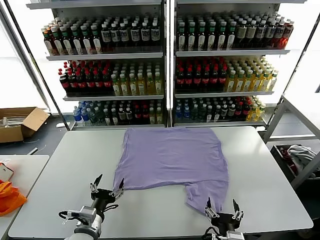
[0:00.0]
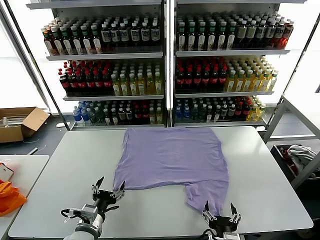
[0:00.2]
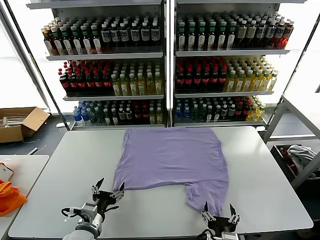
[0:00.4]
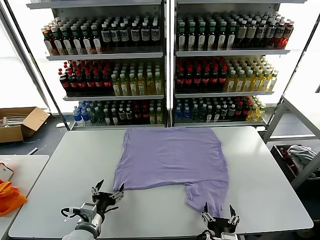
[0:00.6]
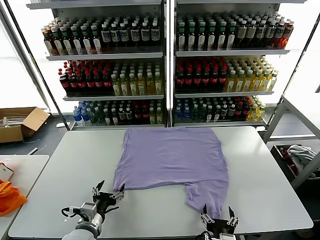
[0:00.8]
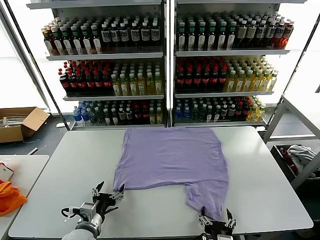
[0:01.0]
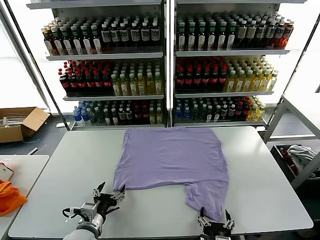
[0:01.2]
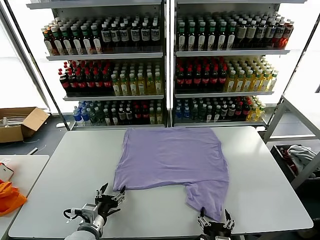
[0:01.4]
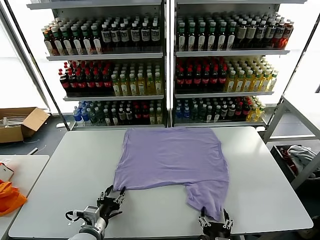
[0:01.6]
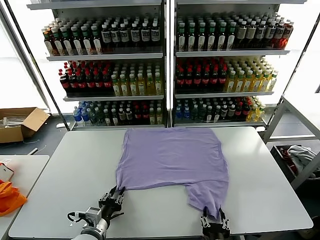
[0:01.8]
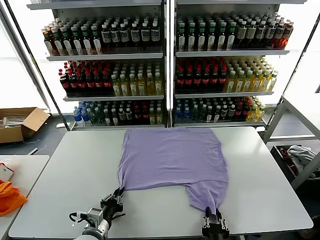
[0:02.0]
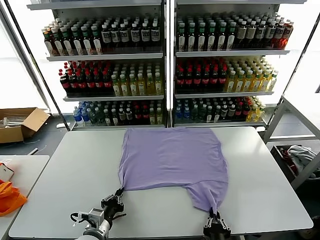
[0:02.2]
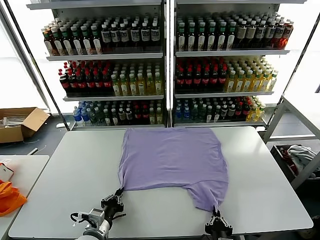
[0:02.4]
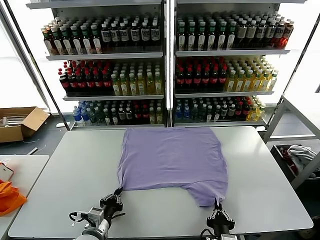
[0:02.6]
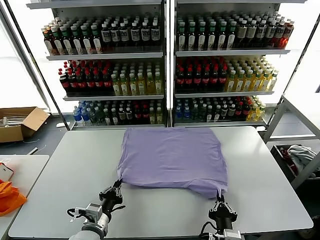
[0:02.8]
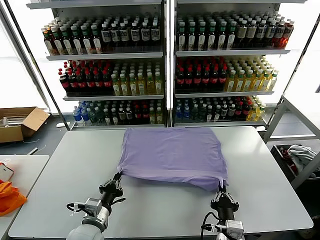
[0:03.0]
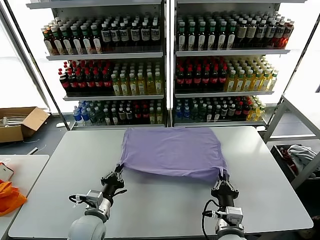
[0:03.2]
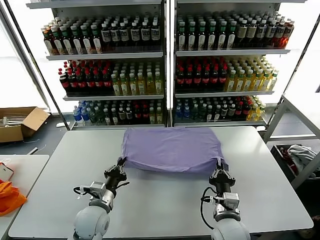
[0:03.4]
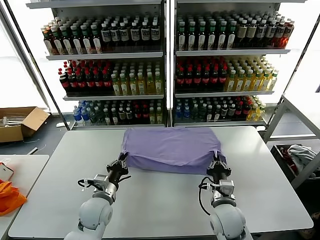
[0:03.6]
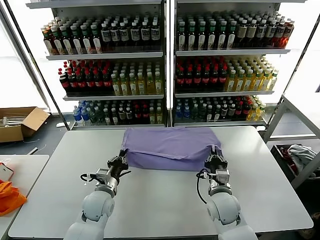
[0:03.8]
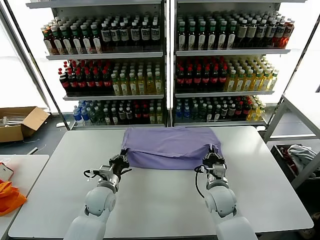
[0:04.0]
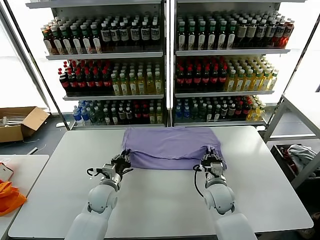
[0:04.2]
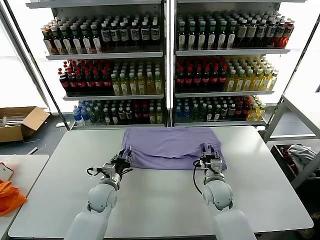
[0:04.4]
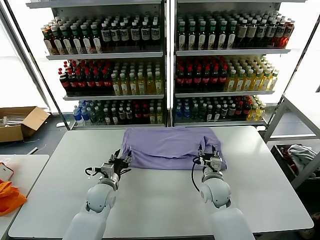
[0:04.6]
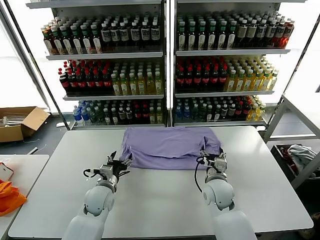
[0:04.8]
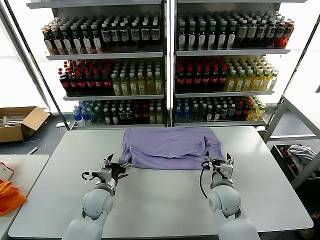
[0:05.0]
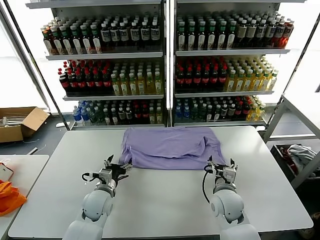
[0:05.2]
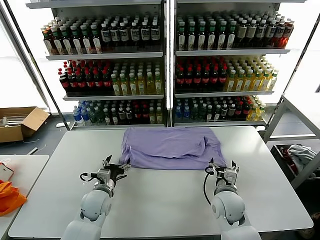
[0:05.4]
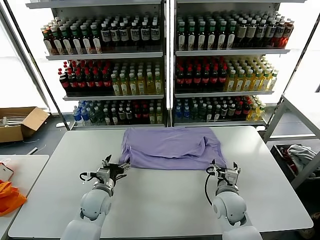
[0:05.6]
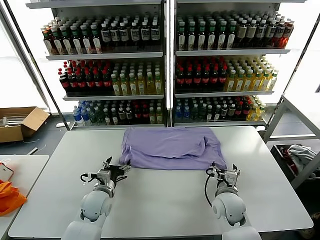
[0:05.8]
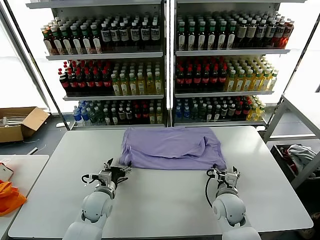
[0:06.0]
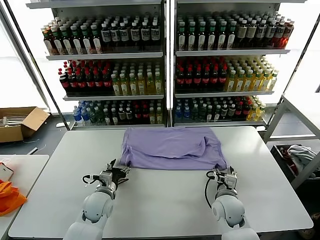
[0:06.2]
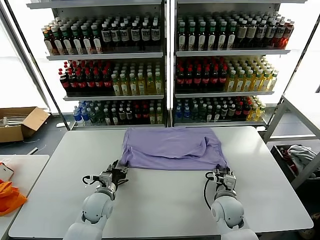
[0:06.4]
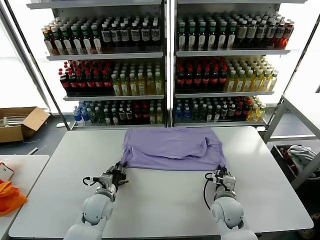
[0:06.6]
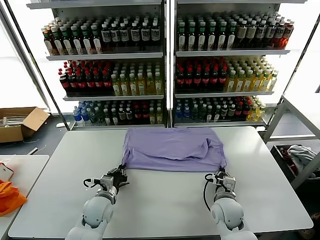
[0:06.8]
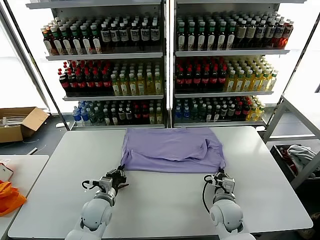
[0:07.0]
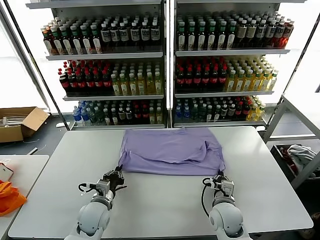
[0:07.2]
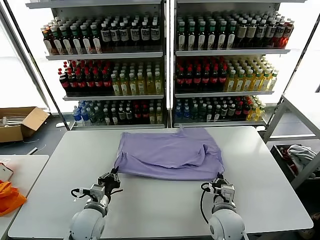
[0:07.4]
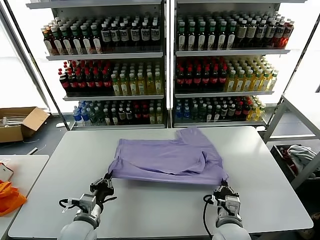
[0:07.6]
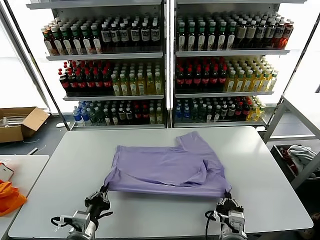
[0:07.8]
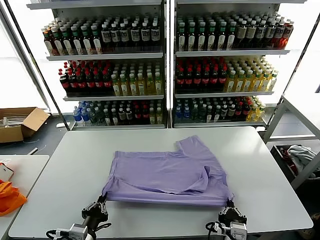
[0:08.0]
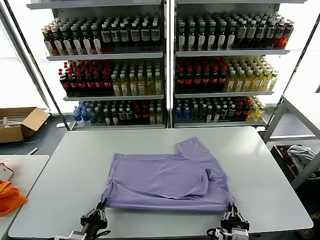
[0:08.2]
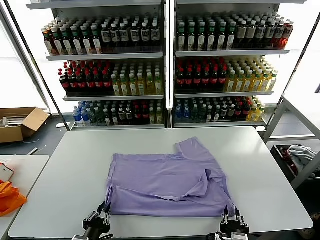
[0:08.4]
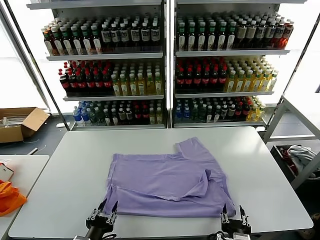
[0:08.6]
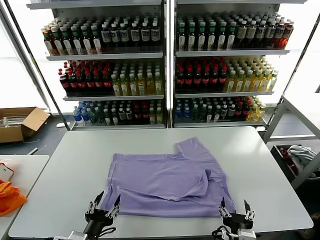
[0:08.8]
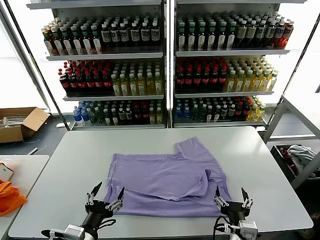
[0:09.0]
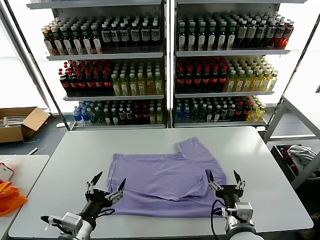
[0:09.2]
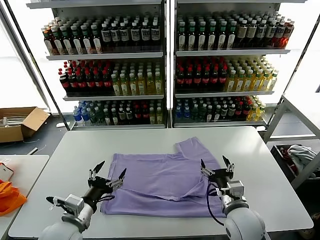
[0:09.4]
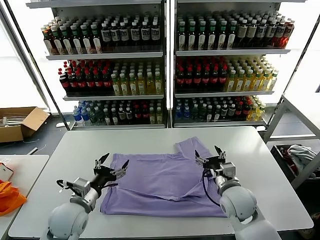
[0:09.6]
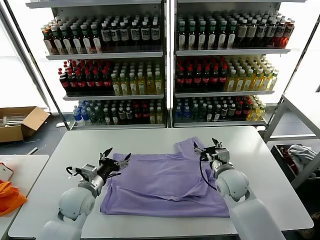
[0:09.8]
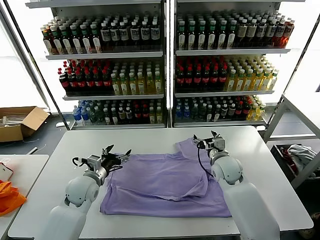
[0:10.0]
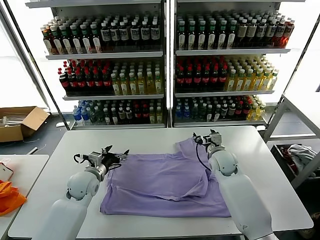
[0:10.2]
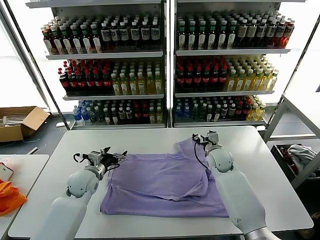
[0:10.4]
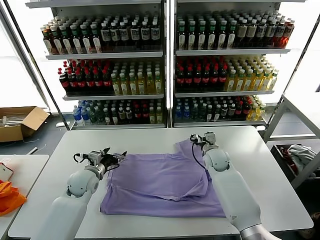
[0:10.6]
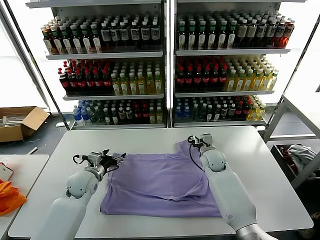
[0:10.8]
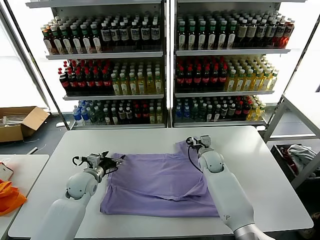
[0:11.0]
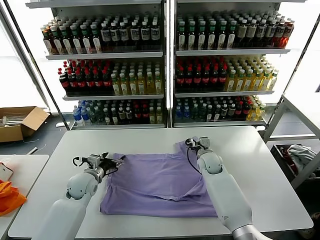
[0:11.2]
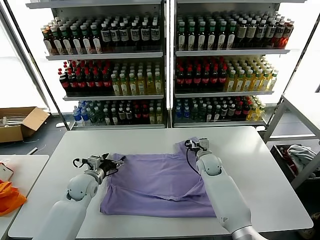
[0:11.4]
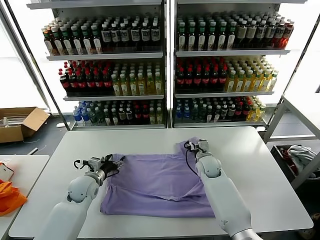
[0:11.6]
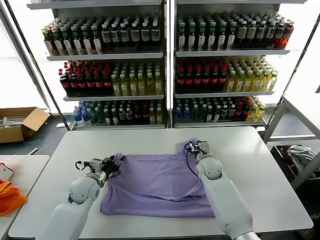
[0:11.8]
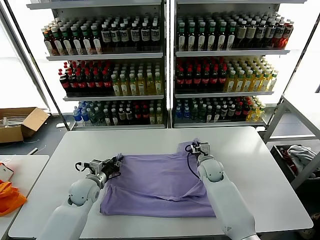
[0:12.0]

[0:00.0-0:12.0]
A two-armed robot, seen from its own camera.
Task of the whole recording: fold and organize the clothes.
Step, 0.0 to 2.6 s: use both grippers simultaneously to clamp the lower edge of the clothing fabric.
Step, 2.8 to 4.6 s: use both grippers to drag the lower edge of the fabric forward and fold it over the upper edge.
Step, 4.8 to 8.4 s: Drag the clothes downward with both gripper.
1.6 to 3.0 s: The right gripper moves forward, about 5 cm, and closes its fingers. Meanwhile the left gripper closes its fingers.
3.0 to 4.4 s: Both grippers travel together forward, about 15 cm. The right gripper opens its fingers.
4.4 to 6.0 s: The right gripper moves backward, some 5 cm. The left gripper opens its fingers.
6.0 to 7.6 s: The grippers both shift backward by roughly 10 cm. The left gripper closes its fingers. The right gripper closes up.
7.6 to 9.0 s: The left gripper shifts some 10 cm backward, and opens up. Meanwhile the right gripper opens.
9.0 to 10.4 s: Both grippers move forward, about 30 cm.
10.4 to 12.0 s: The left gripper closes up. Meanwhile the right gripper shifts by roughly 5 cm, and closes up.

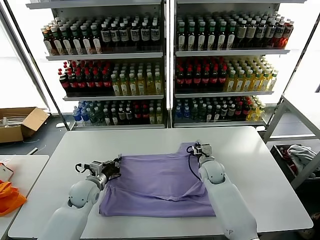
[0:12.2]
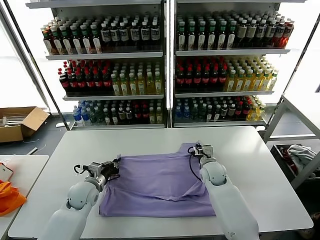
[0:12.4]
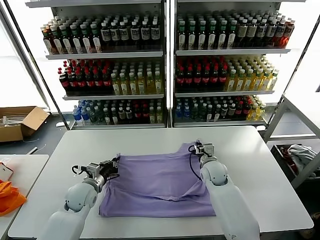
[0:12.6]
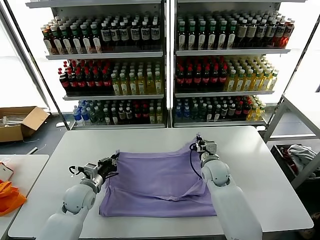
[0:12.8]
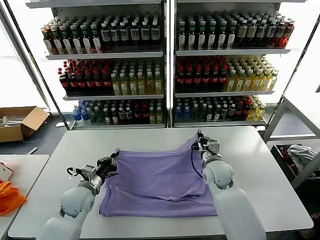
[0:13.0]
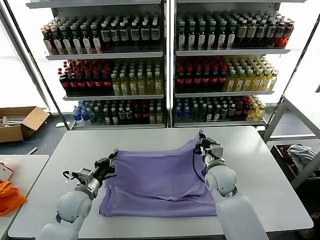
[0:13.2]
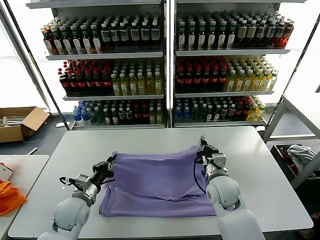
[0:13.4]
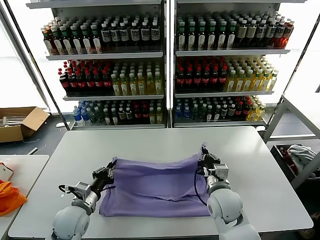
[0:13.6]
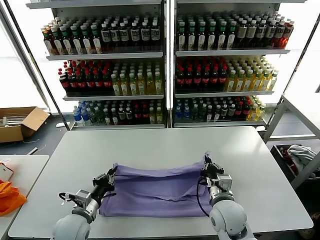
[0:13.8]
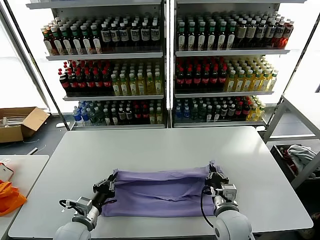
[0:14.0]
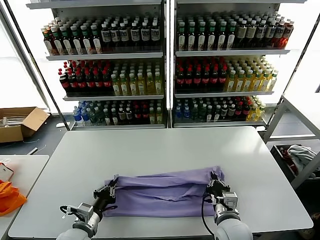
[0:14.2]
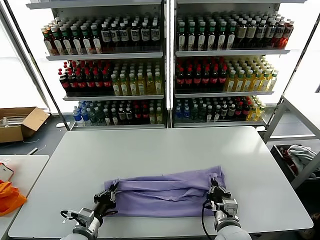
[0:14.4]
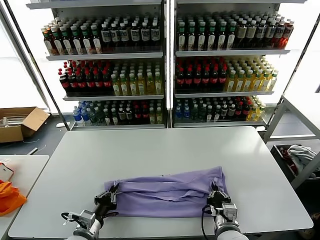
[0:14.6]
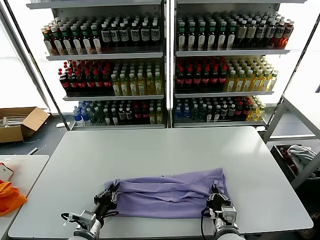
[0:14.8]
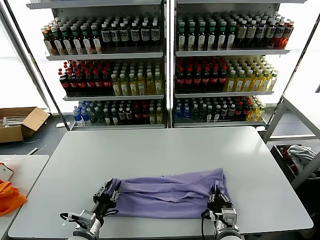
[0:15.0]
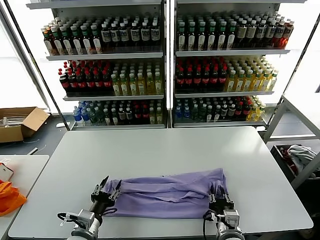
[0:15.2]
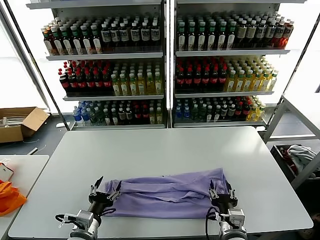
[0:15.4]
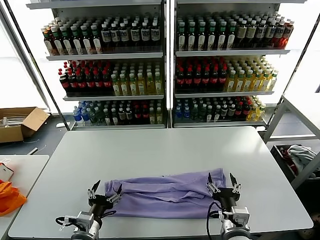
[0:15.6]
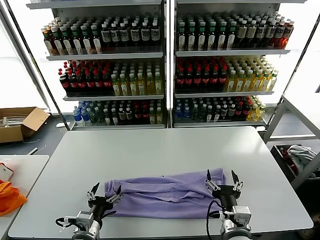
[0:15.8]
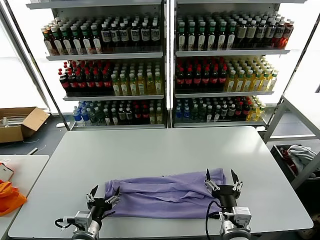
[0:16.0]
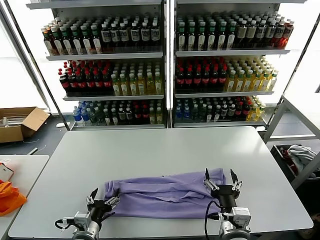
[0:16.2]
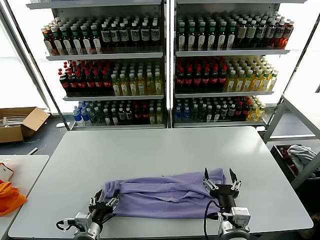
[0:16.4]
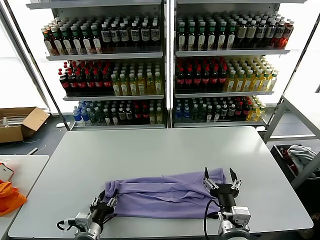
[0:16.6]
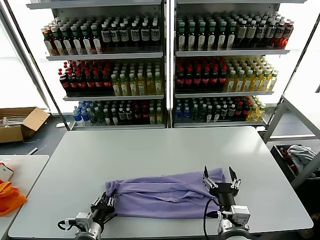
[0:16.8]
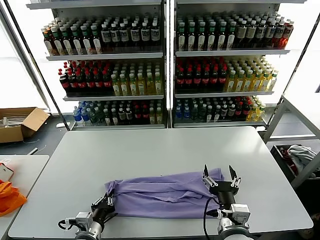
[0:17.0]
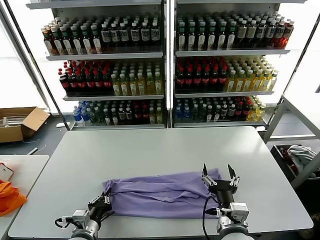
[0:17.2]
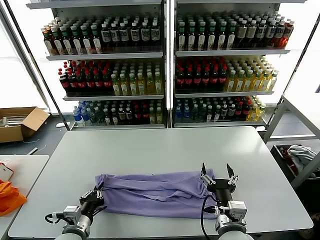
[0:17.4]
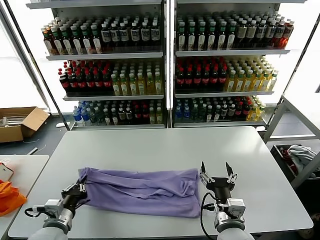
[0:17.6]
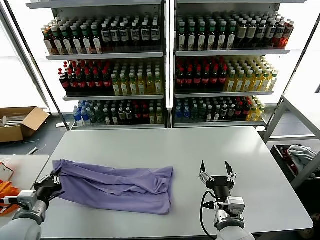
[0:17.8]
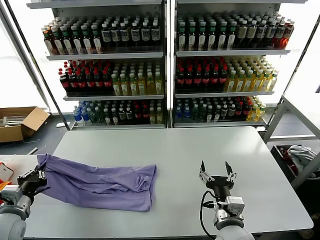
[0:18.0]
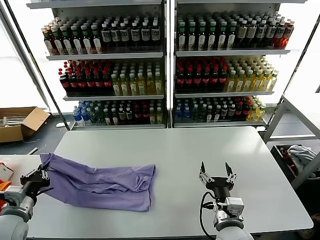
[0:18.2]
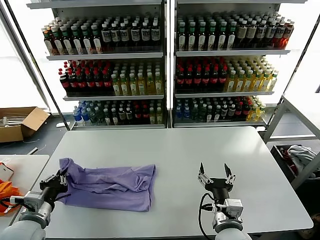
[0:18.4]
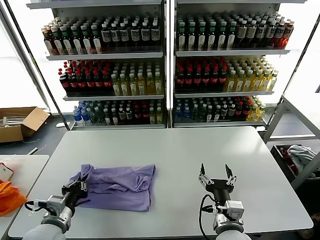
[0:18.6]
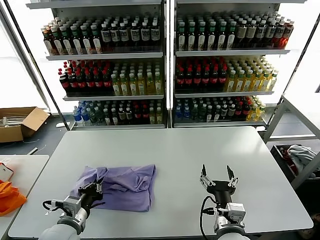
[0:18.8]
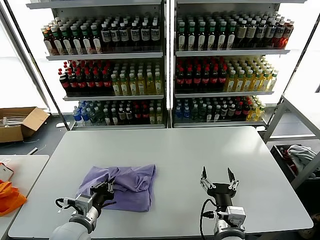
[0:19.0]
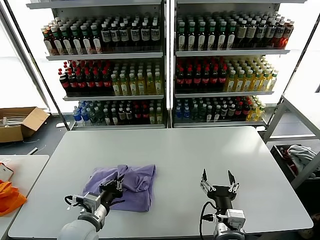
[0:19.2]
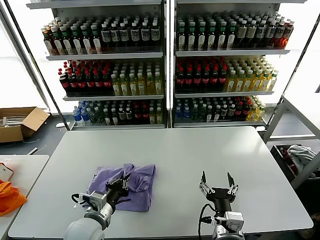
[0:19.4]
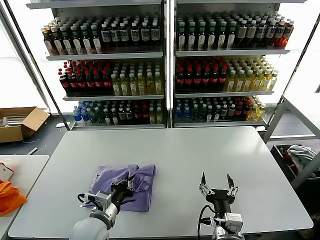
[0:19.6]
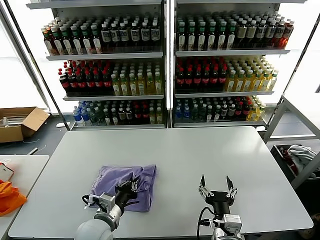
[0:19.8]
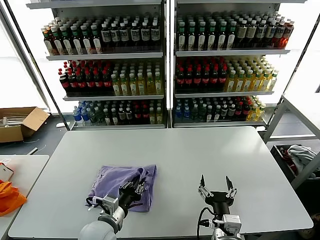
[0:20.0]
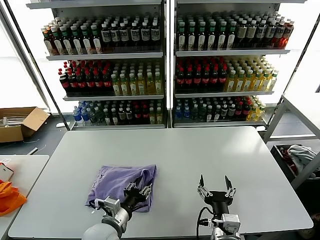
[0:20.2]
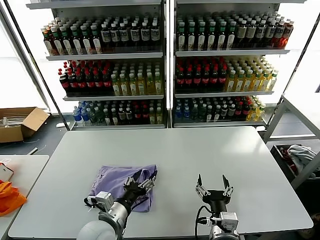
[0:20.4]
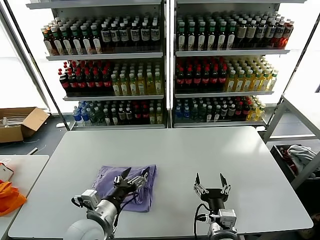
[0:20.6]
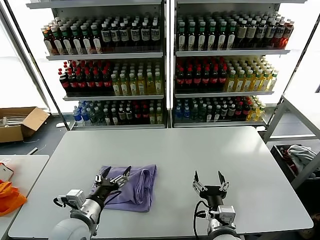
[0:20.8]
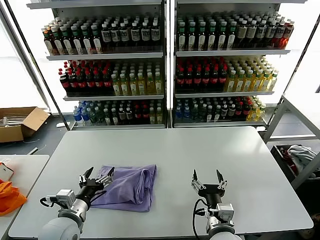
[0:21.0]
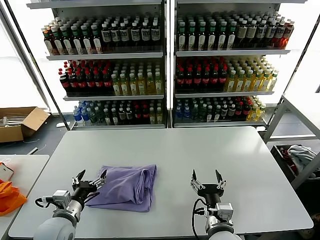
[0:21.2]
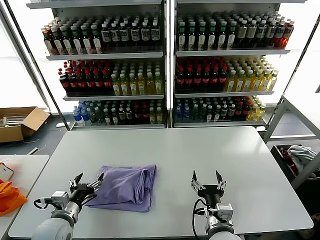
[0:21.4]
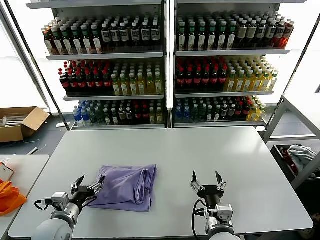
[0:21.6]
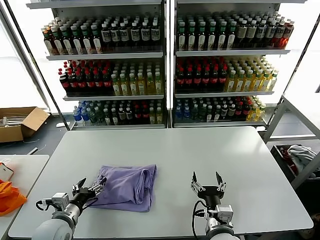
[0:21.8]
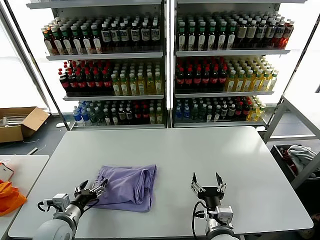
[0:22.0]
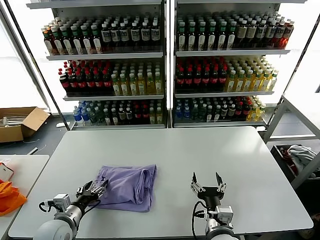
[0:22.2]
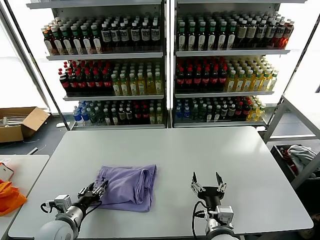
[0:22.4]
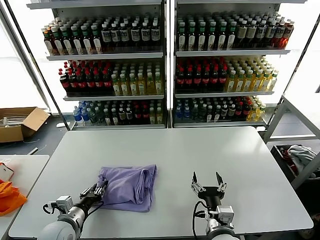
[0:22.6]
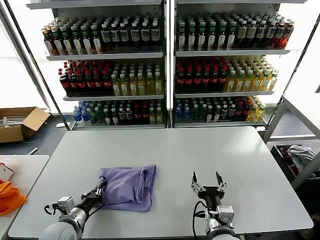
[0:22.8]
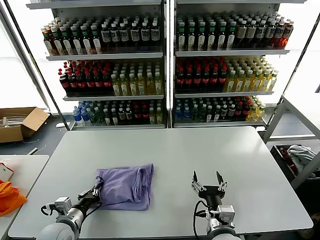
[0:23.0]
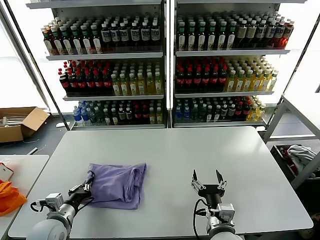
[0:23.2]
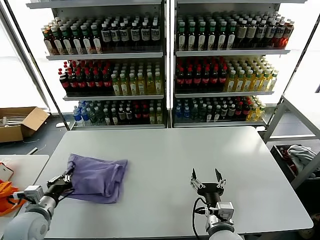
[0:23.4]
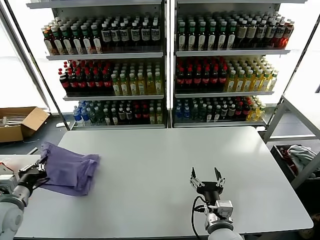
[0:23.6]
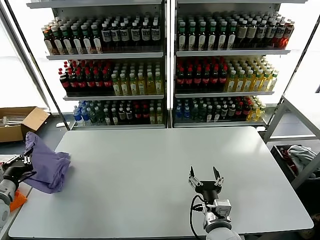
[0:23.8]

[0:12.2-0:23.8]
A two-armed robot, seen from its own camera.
Task of the whole recording: fold and organize the clothes.
Step, 12.8 to 15.2 s: use both grippers to drag the upper edge of the fabric backward and fold it over the lower edge.
Step, 15.4 to 17.0 s: use the left gripper to clamp the left edge of the fabric.
Step, 17.2 to 20.0 s: use the left gripper to drag the left edge of the fabric to the left and folds it over the right edge.
12.2 to 13.6 s: The left gripper moves backward, approximately 10 cm, while the right gripper shifts some 15 cm backward.
13.6 to 15.0 s: The right gripper is displaced backward and downward by some 10 cm. Meanwhile the left gripper travels backward by roughly 10 cm.
15.0 to 16.6 s: The right gripper moves upward, some 10 cm, and opens its fingers. Meanwhile the left gripper opens up.
16.6 to 18.0 s: The left gripper heads to the left and upward, covering about 20 cm, and closes up.
18.0 to 19.4 s: The left gripper shifts roughly 20 cm to the right.
19.4 to 21.0 s: The left gripper travels to the left by approximately 5 cm, and opens its fingers.
21.0 to 22.4 s: The left gripper shifts approximately 5 cm to the left and downward.
22.4 to 23.8 s: The left gripper moves to the left and upward, roughly 20 cm, and closes its fingers.
